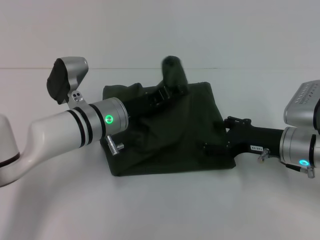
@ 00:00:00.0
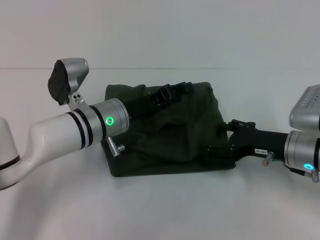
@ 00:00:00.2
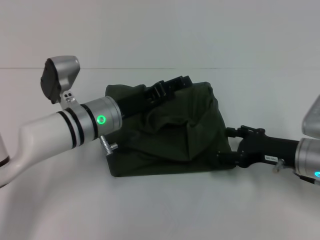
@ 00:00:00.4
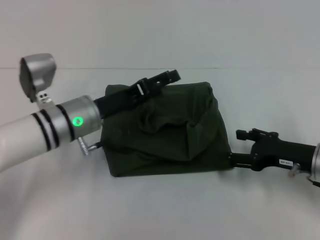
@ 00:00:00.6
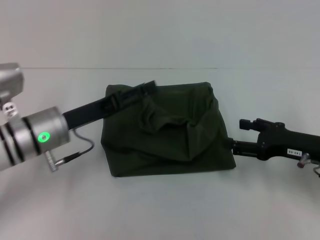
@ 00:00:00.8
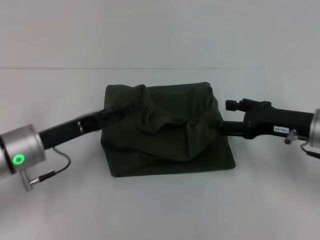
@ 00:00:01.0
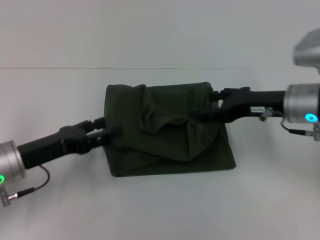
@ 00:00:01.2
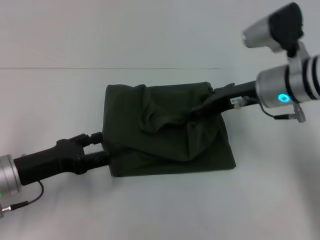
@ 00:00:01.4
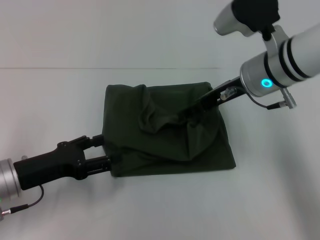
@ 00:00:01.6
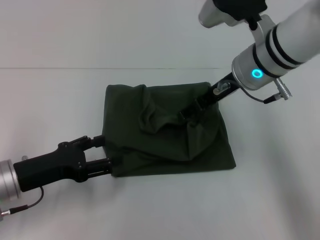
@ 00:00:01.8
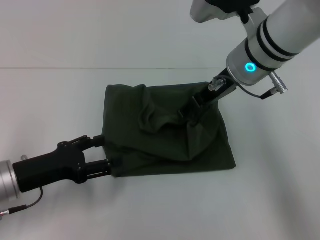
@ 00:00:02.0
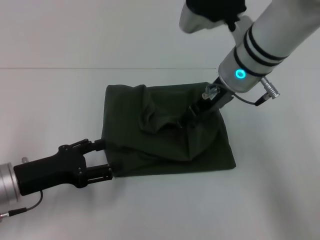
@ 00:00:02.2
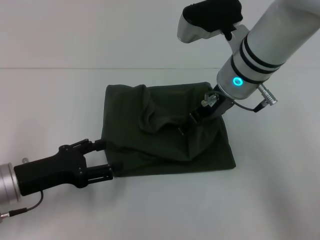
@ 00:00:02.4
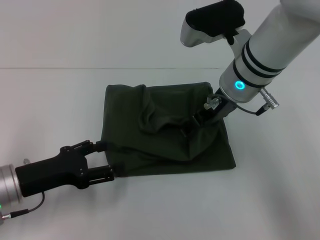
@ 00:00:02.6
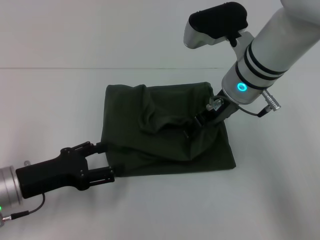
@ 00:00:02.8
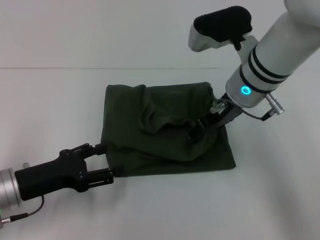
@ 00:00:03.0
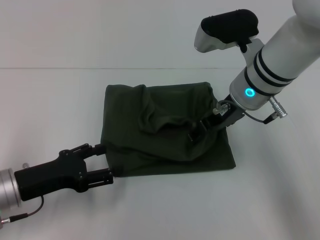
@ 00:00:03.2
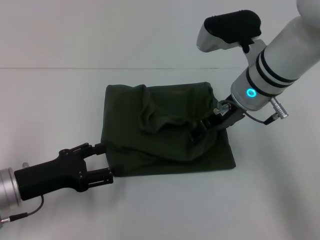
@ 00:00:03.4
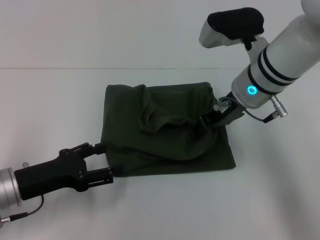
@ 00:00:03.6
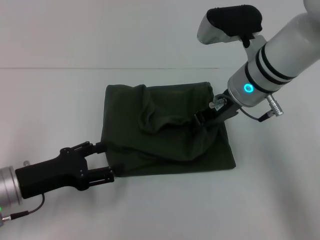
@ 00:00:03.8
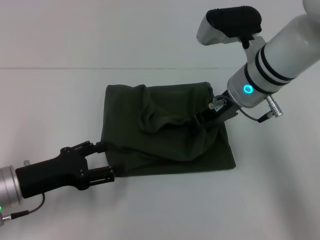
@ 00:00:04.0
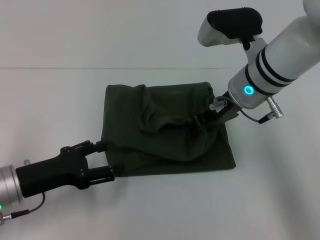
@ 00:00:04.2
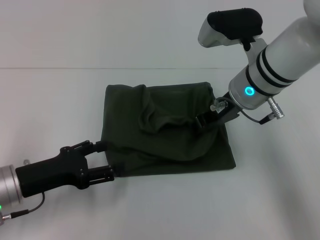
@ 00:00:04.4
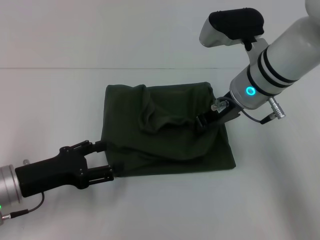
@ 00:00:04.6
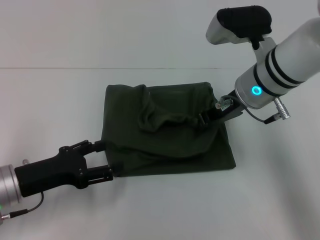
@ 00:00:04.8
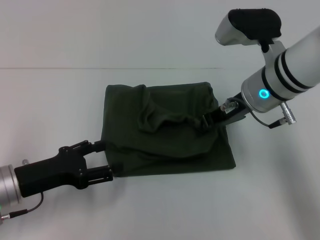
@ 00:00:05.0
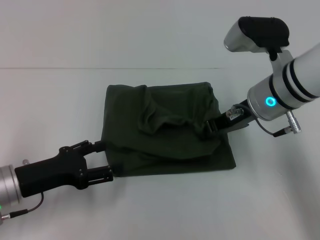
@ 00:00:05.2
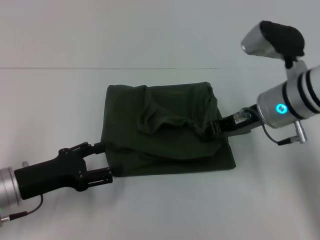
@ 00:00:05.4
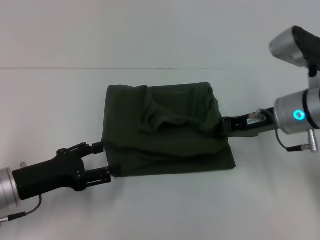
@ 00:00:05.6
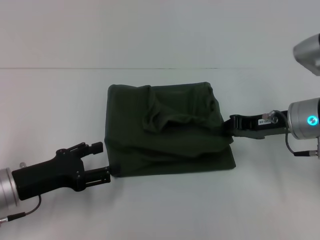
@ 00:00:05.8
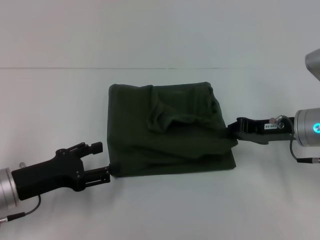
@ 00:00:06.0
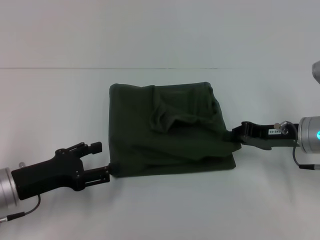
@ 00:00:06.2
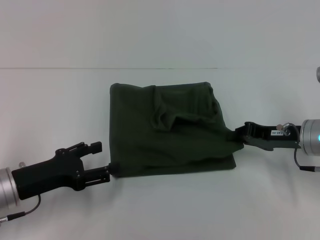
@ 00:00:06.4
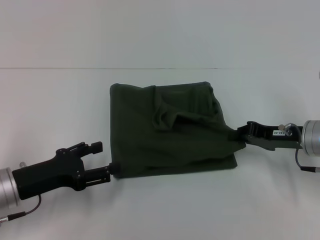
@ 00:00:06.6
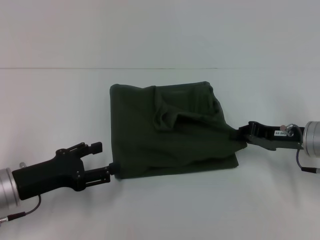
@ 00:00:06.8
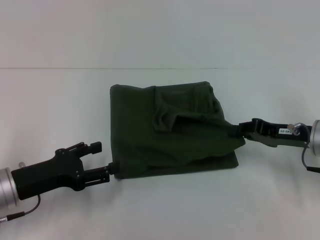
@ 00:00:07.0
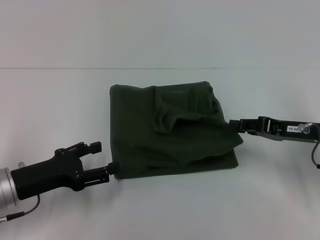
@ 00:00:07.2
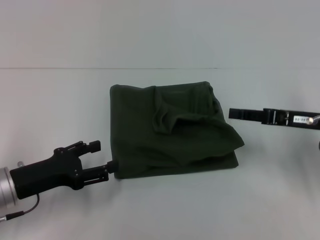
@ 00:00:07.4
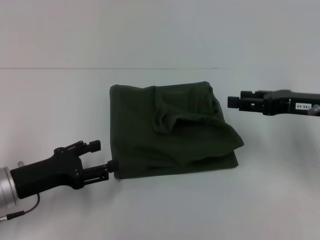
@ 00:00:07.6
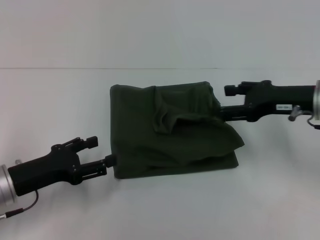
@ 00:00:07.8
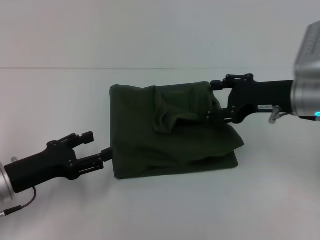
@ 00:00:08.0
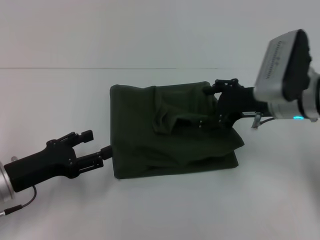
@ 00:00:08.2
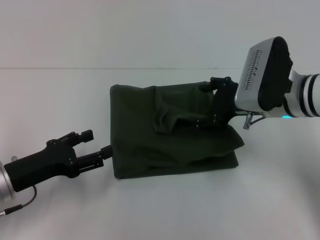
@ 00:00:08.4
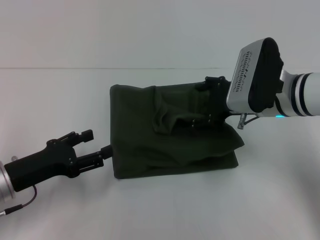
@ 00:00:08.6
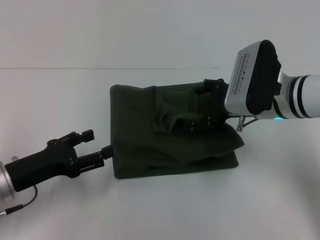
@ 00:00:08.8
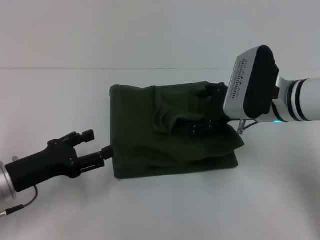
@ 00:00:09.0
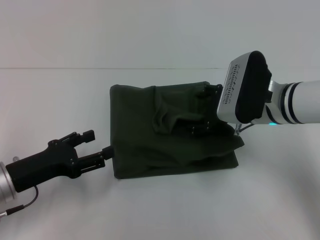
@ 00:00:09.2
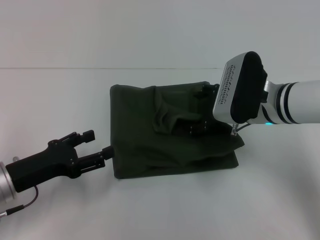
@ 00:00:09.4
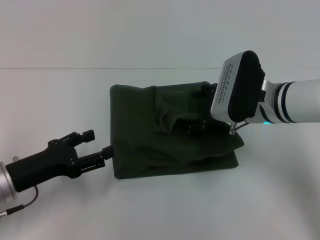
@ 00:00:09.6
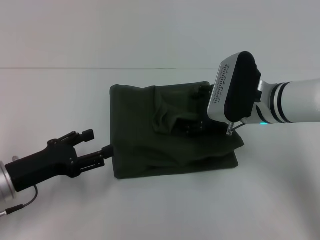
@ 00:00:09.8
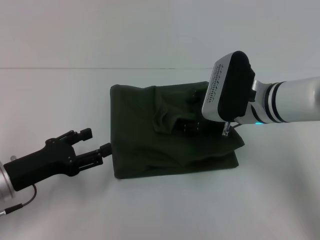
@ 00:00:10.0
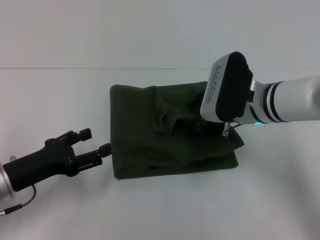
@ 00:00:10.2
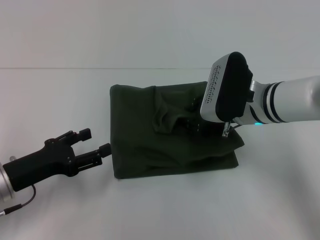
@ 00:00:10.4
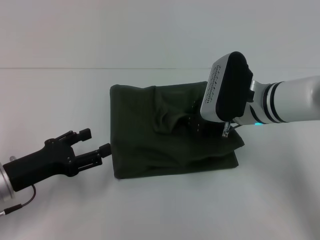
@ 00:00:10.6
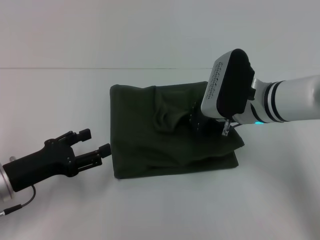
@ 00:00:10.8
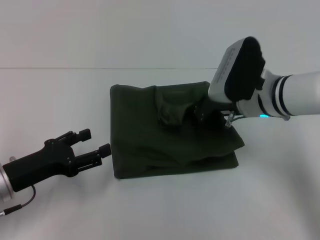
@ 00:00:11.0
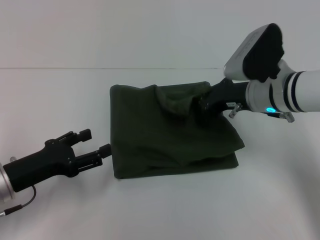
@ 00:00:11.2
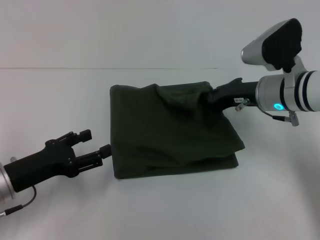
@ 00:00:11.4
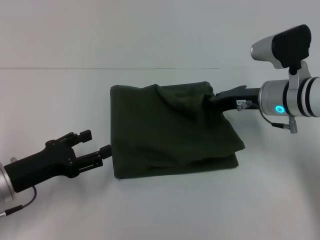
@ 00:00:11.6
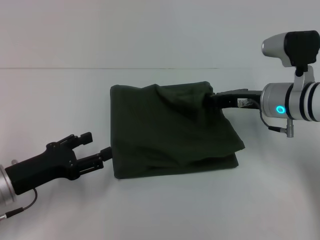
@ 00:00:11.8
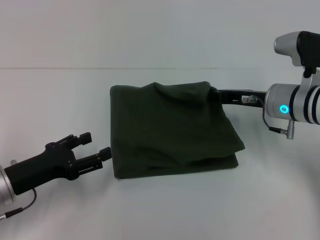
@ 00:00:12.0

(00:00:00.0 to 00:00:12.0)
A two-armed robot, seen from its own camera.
00:00:00.0 - 00:00:01.6: The right gripper heads upward, to the left and forward, covering roughly 15 cm. The left gripper is displaced to the left and backward by approximately 15 cm, and opens up.
00:00:03.0 - 00:00:04.4: The right gripper closes.
00:00:04.4 - 00:00:06.0: The right gripper goes roughly 15 cm to the right and downward, and closes its fingers.
00:00:06.0 - 00:00:07.6: The right gripper moves about 5 cm, and opens up.
00:00:07.6 - 00:00:09.0: The right gripper is displaced to the left by roughly 10 cm, and opens up.
00:00:09.0 - 00:00:10.4: The grippers make only small movements.
00:00:10.4 - 00:00:12.0: The right gripper travels to the right by some 5 cm, and closes up.

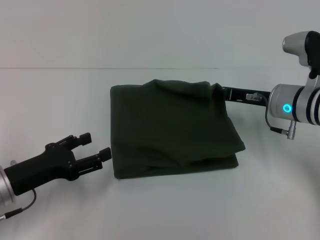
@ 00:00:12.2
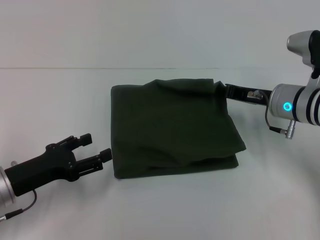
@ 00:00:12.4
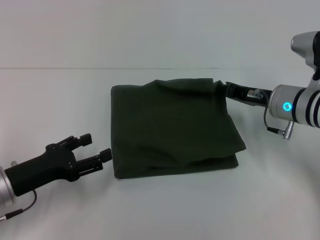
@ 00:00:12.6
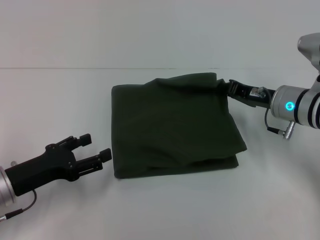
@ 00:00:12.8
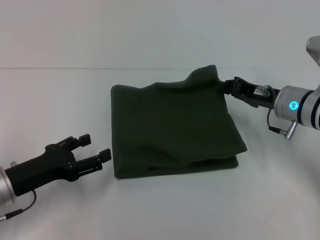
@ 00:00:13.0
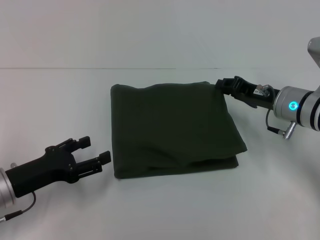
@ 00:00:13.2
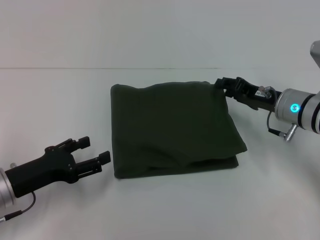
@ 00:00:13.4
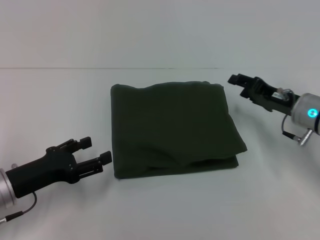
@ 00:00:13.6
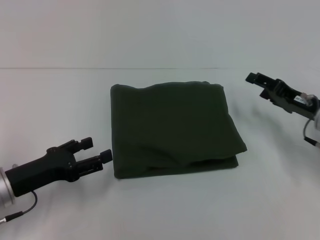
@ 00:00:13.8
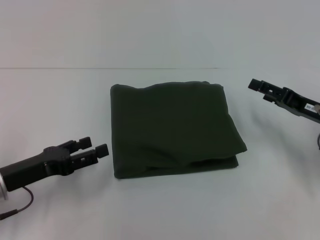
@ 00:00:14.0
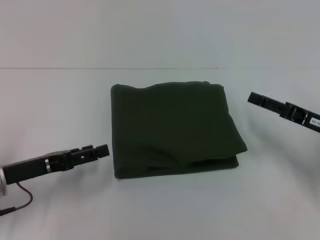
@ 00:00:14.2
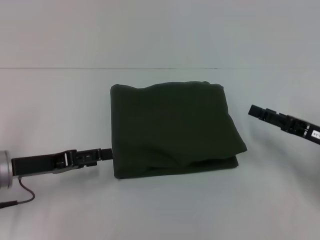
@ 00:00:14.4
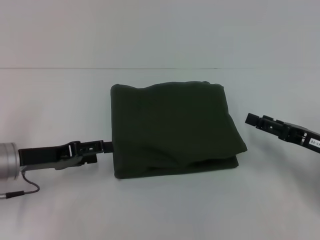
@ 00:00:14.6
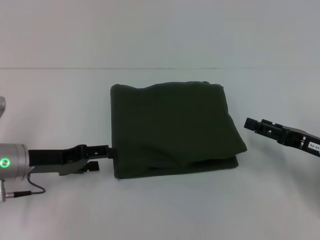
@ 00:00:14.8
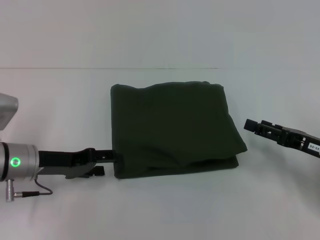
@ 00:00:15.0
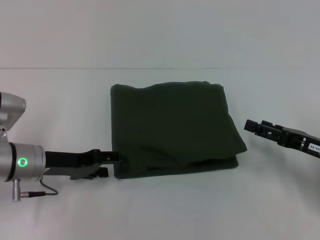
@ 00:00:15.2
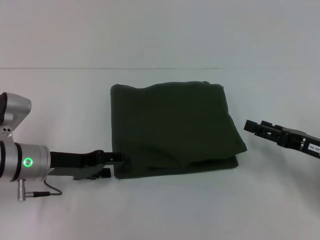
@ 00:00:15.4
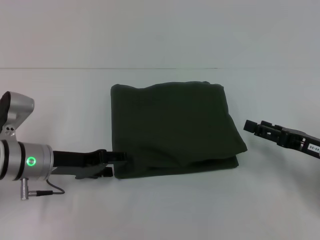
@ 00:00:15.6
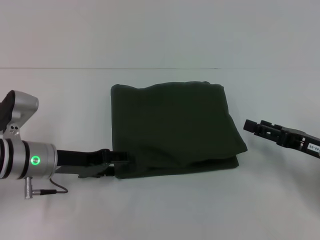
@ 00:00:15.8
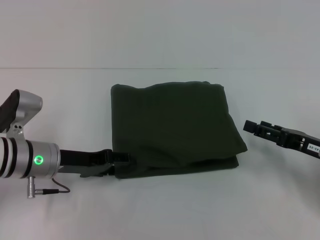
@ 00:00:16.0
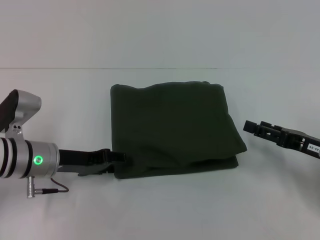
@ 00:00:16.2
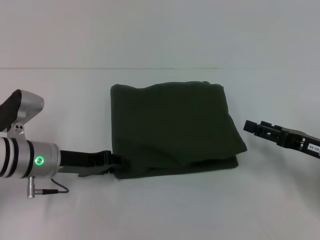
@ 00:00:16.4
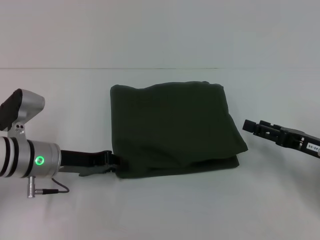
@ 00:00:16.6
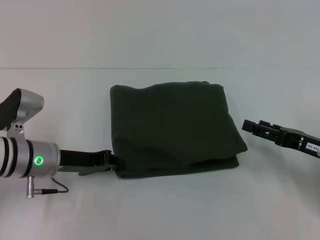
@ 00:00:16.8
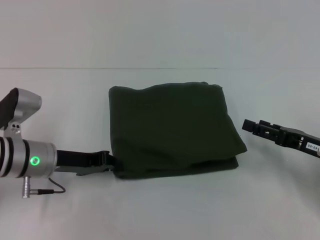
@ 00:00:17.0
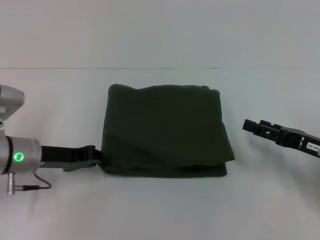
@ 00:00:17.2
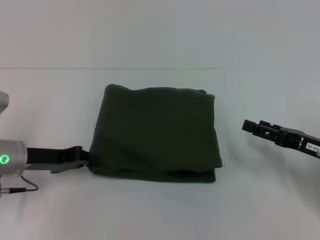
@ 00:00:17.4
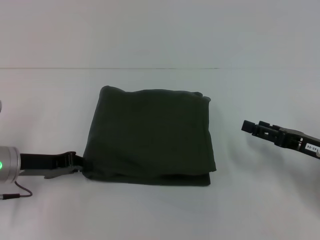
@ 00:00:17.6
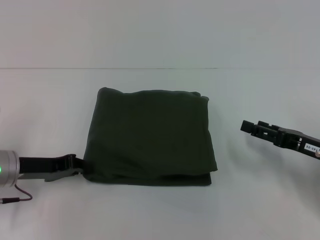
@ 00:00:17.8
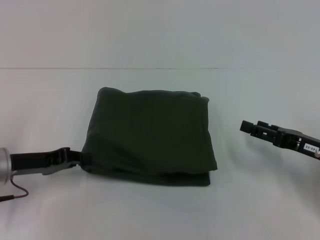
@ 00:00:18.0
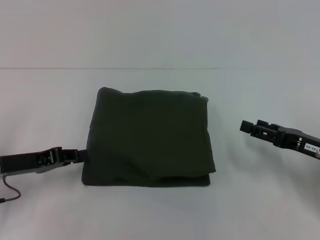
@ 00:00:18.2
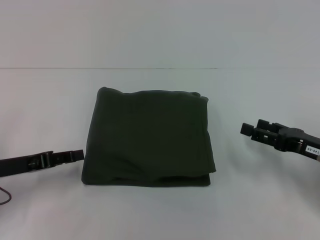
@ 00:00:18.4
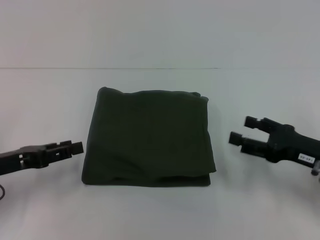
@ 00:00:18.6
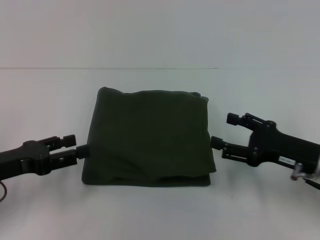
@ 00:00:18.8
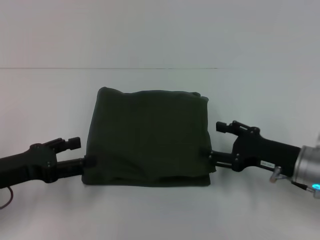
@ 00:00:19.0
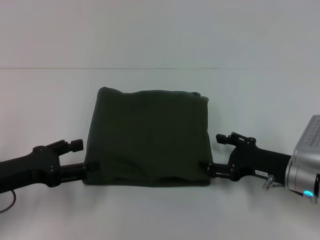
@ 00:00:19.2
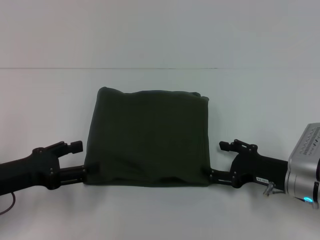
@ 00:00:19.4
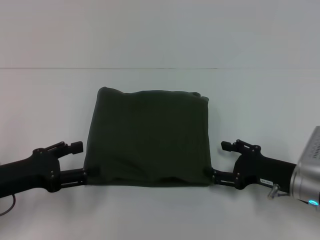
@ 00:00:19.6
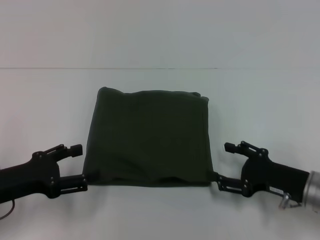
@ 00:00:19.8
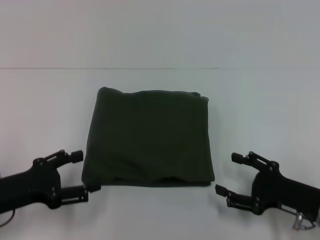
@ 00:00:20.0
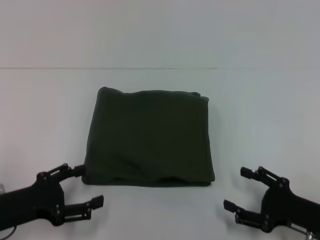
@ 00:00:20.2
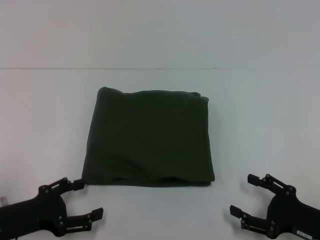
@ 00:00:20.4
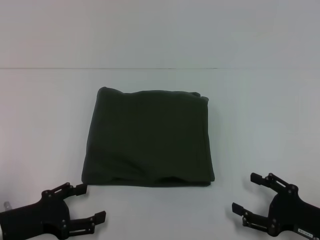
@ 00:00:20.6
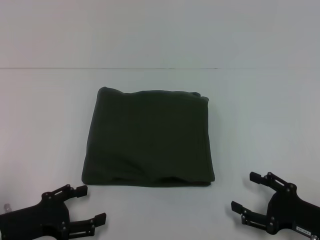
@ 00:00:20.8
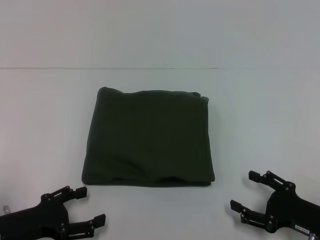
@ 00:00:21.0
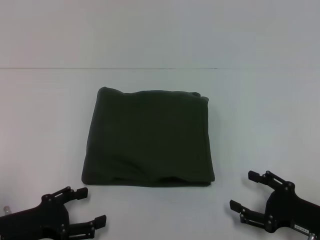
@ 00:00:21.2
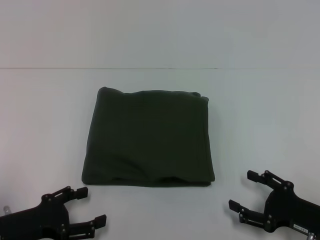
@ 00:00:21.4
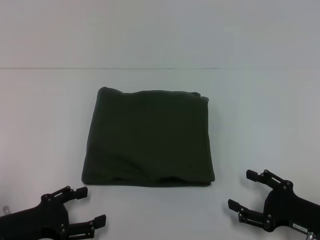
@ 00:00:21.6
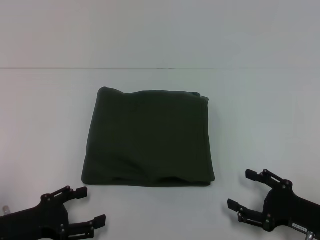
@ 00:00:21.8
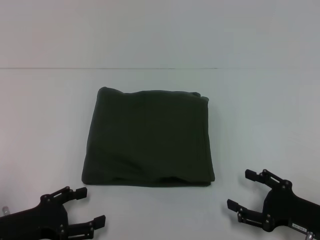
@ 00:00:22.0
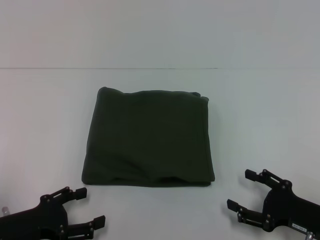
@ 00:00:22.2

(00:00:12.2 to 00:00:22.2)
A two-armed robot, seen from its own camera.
00:00:12.2 - 00:00:13.6: The right gripper opens its fingers.
00:00:13.6 - 00:00:15.0: The left gripper heads forward, covering about 5 cm; the right gripper travels backward and to the right by roughly 10 cm.
00:00:15.0 - 00:00:16.4: The grippers stay close to where they were, moving slightly.
00:00:16.4 - 00:00:18.0: The left gripper shifts roughly 5 cm to the left, and closes its fingers.
00:00:18.0 - 00:00:19.4: The left gripper is displaced backward by about 5 cm, and opens up. The right gripper shifts roughly 5 cm to the left.
00:00:19.4 - 00:00:20.8: The right gripper goes about 10 cm backward. Meanwhile the left gripper is displaced downward by about 5 cm.
00:00:20.8 - 00:00:22.2: Both grippers stay about where they are.
